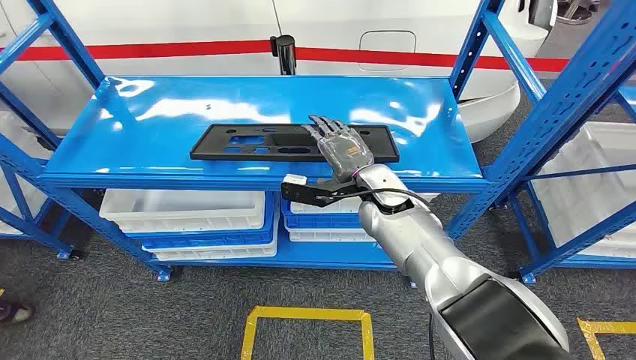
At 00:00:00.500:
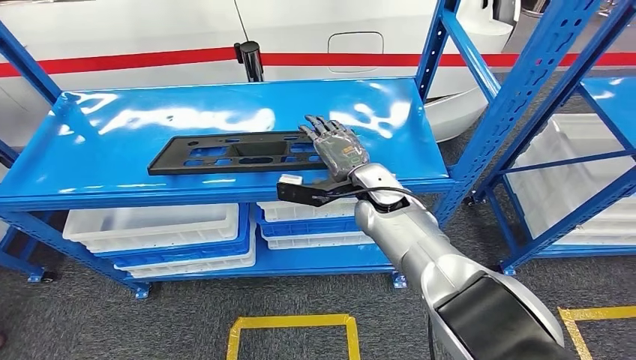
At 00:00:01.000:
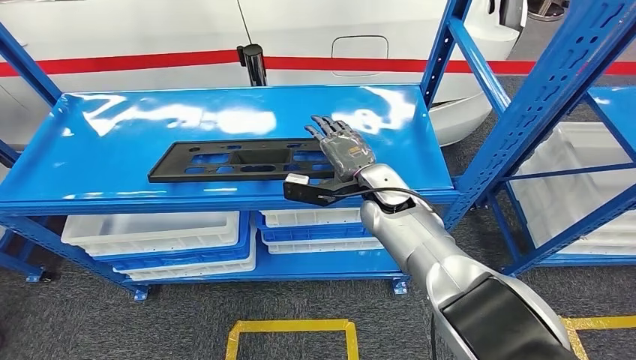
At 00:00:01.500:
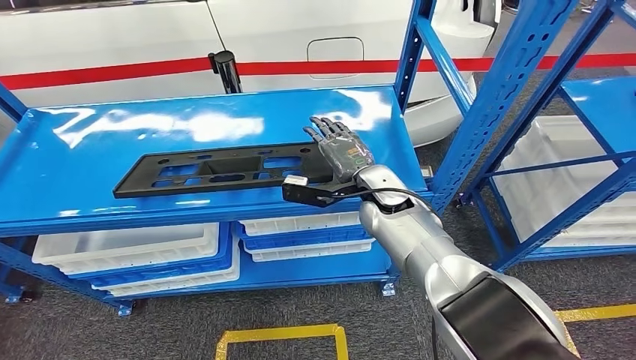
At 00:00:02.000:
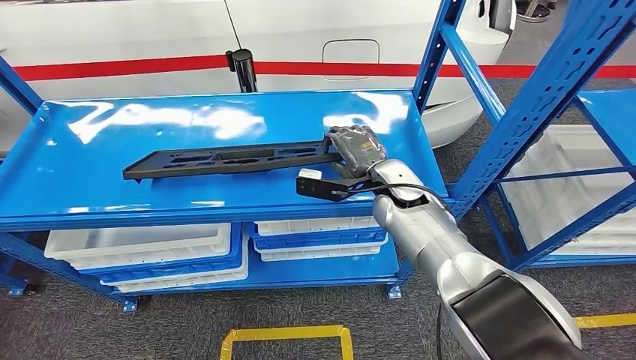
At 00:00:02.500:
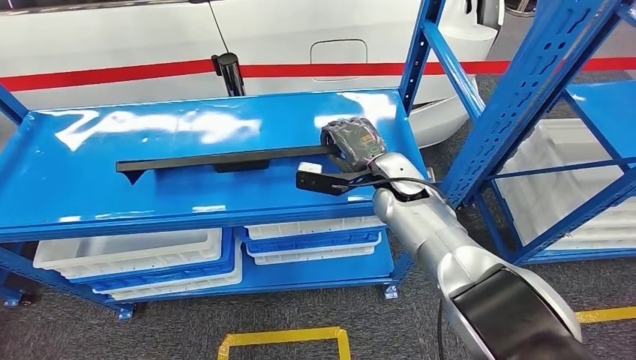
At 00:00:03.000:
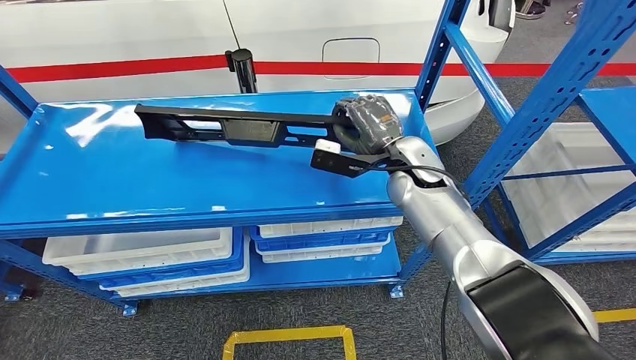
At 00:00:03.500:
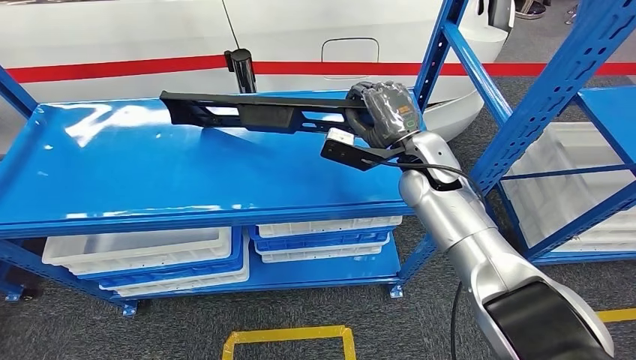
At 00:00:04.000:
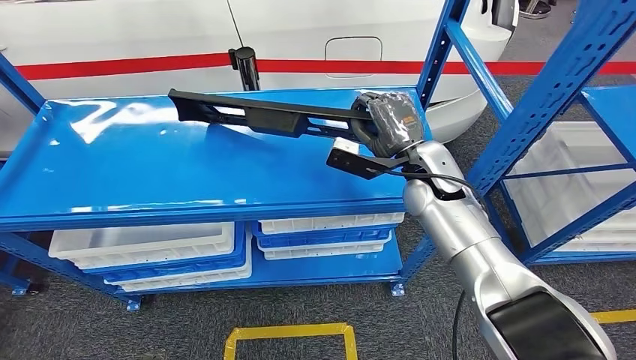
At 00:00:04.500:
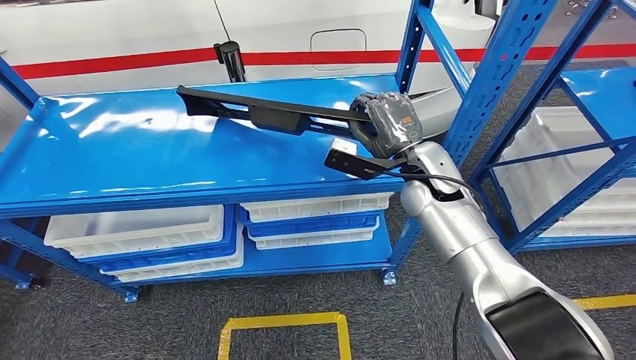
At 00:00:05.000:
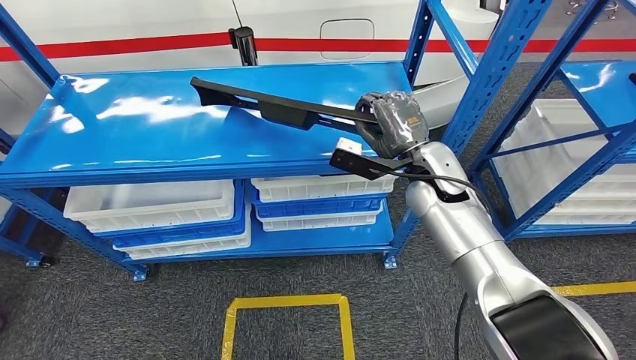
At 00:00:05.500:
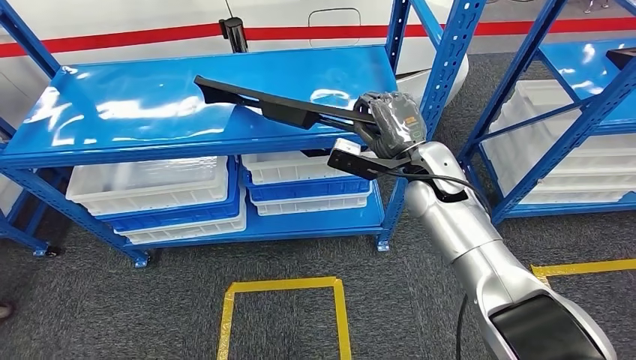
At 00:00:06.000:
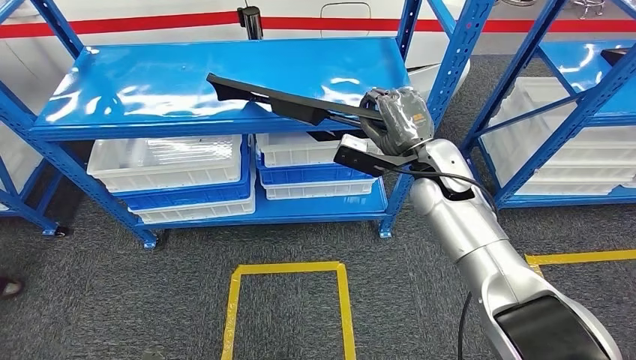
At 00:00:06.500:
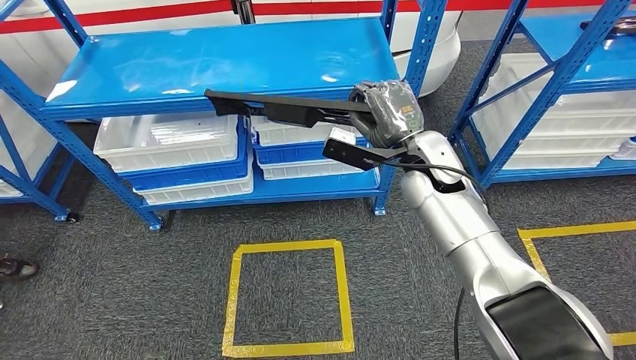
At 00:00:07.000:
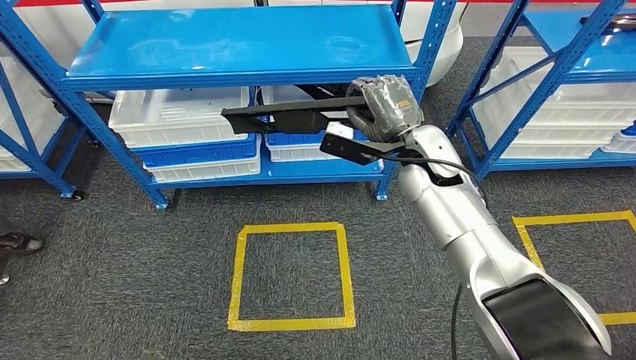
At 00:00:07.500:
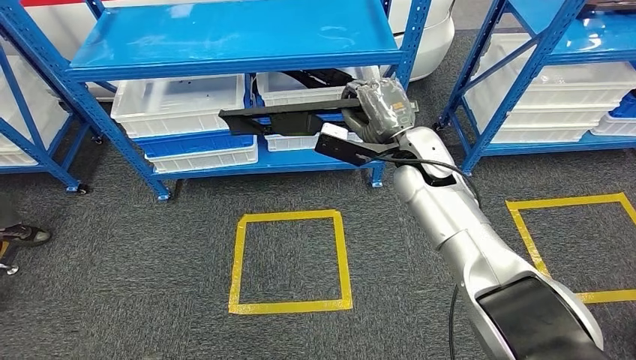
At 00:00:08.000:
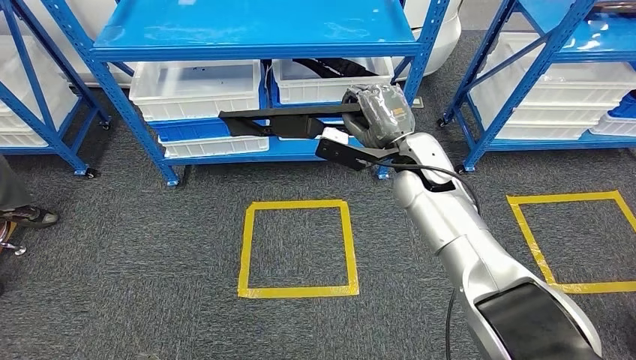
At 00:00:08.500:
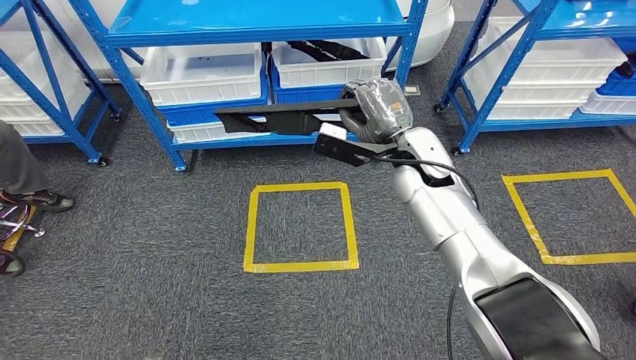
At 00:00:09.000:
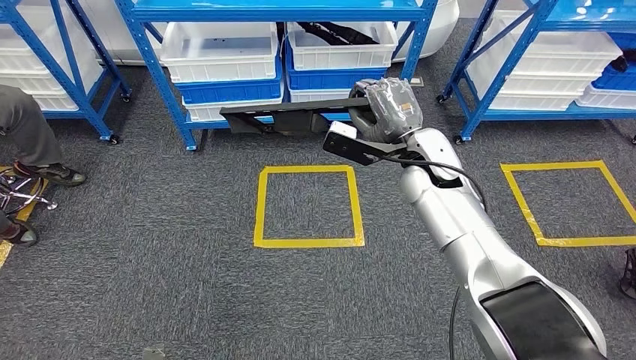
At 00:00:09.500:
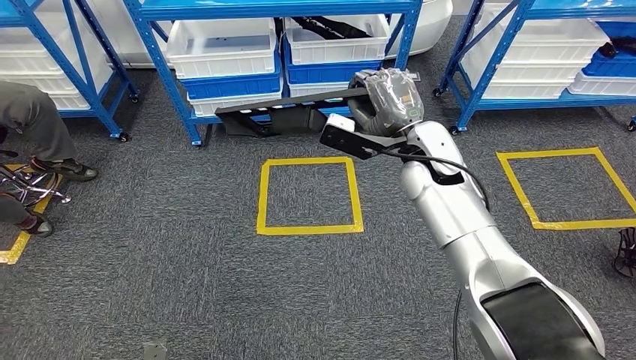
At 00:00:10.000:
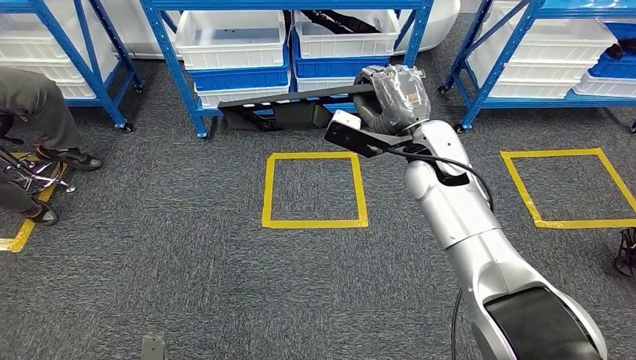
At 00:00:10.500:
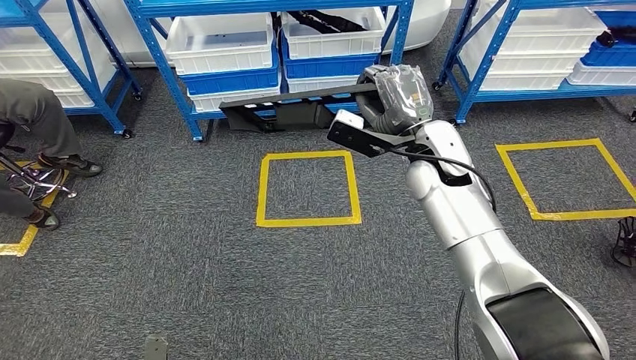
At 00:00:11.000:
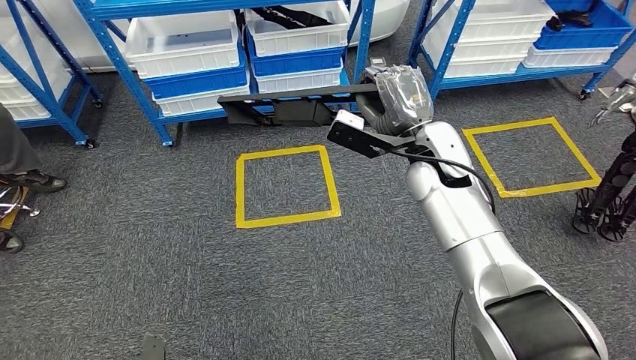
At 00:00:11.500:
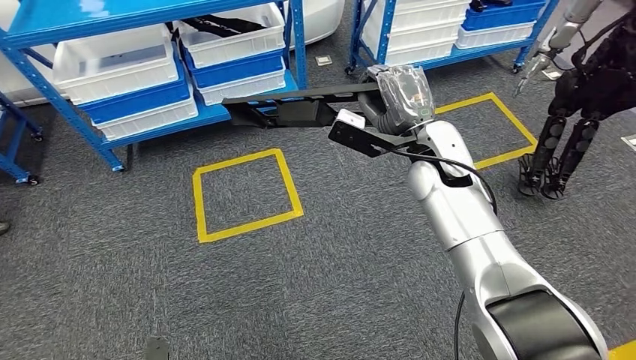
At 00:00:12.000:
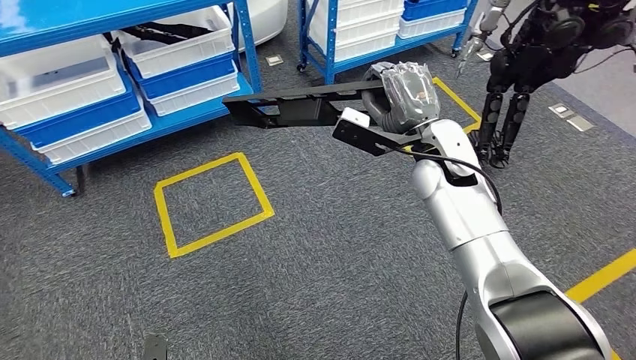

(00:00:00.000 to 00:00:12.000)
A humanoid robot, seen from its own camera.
Step, 00:00:00.000 - 00:00:07.000: Pick up the large material from the shelf.

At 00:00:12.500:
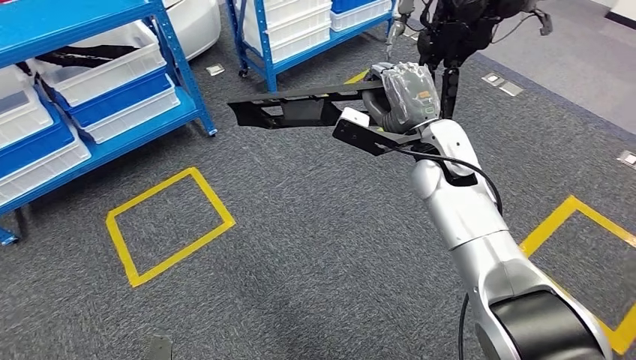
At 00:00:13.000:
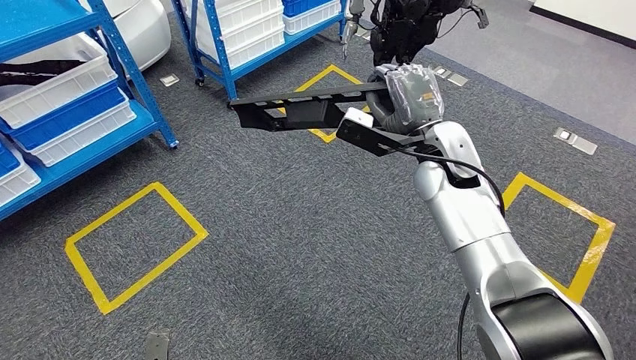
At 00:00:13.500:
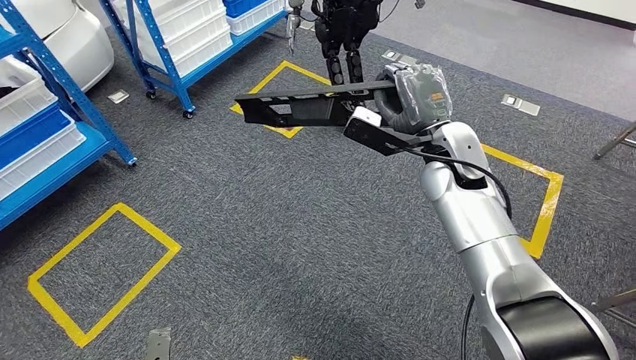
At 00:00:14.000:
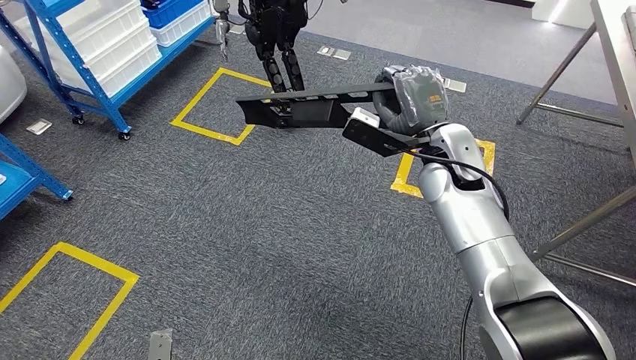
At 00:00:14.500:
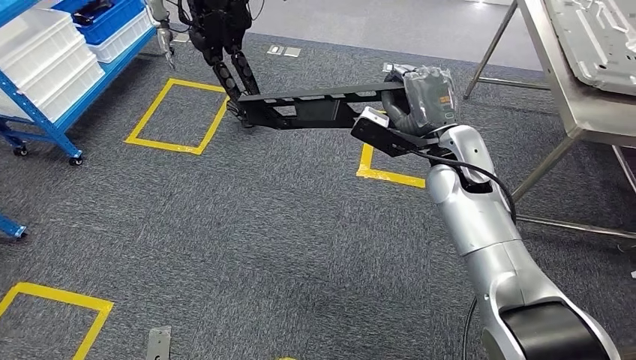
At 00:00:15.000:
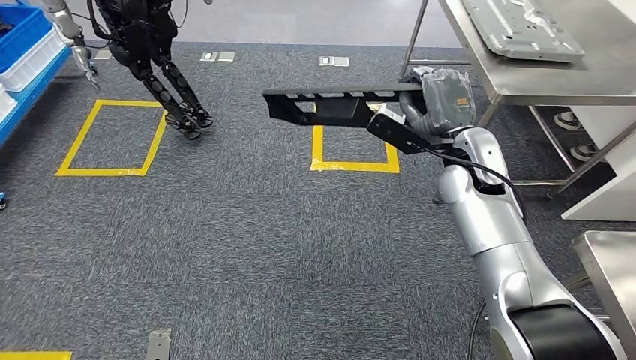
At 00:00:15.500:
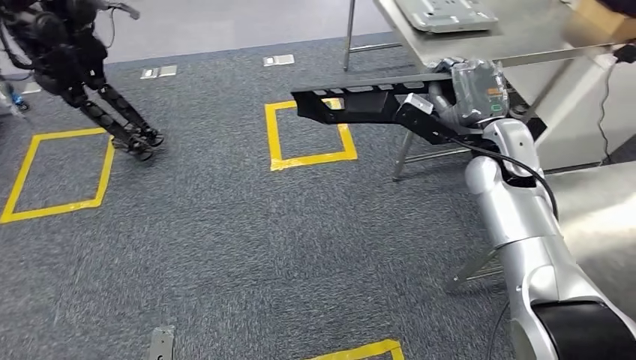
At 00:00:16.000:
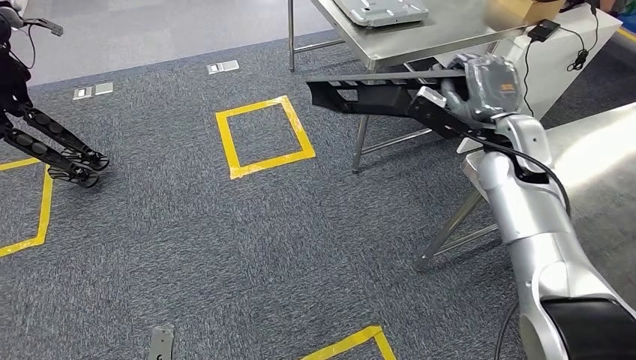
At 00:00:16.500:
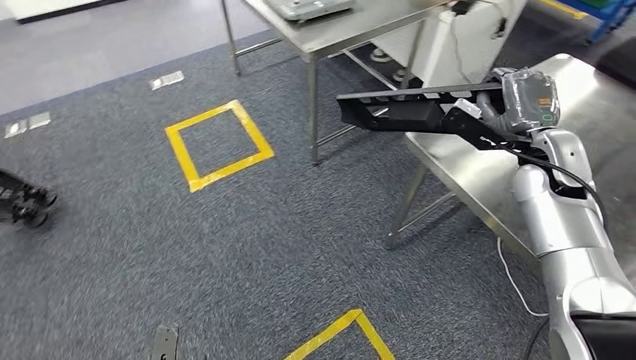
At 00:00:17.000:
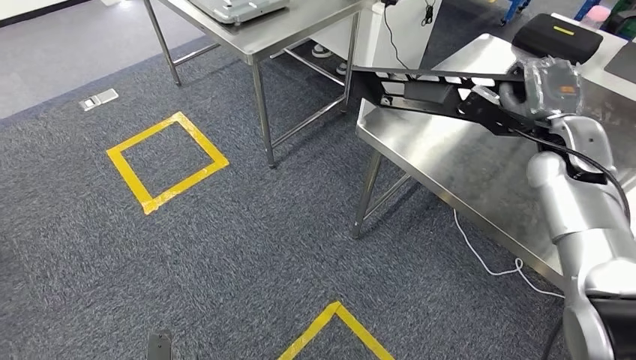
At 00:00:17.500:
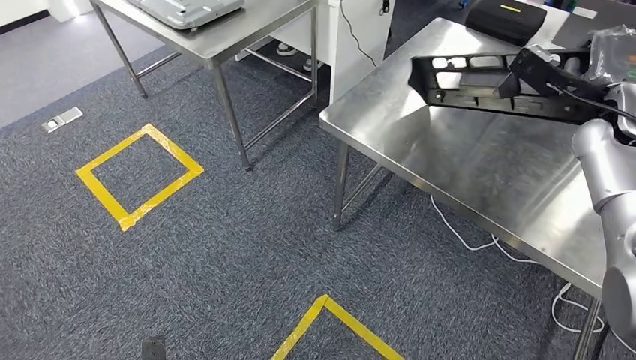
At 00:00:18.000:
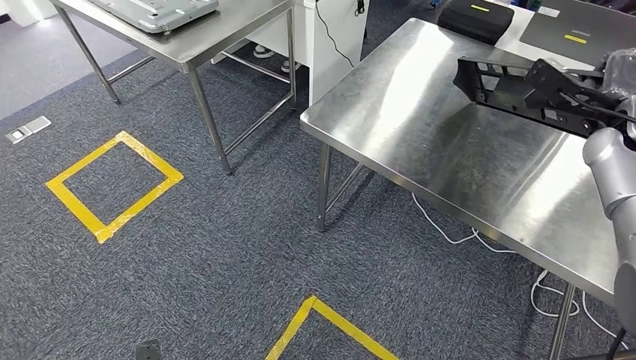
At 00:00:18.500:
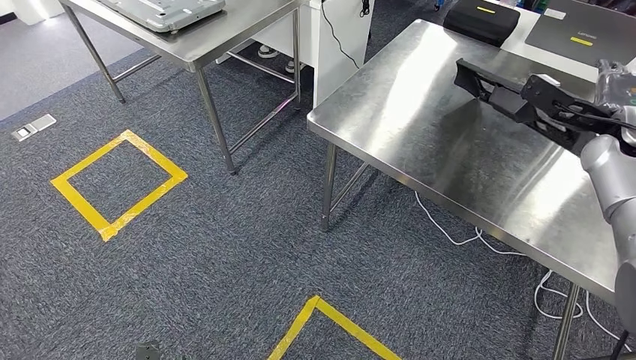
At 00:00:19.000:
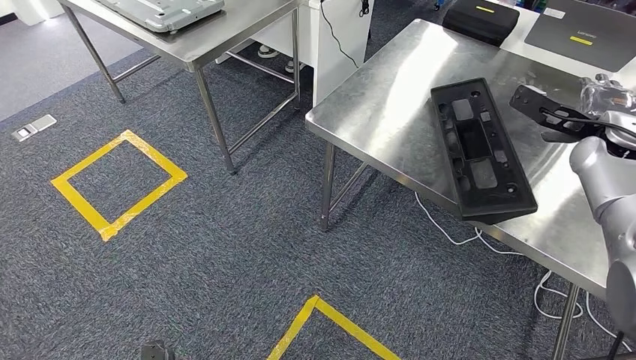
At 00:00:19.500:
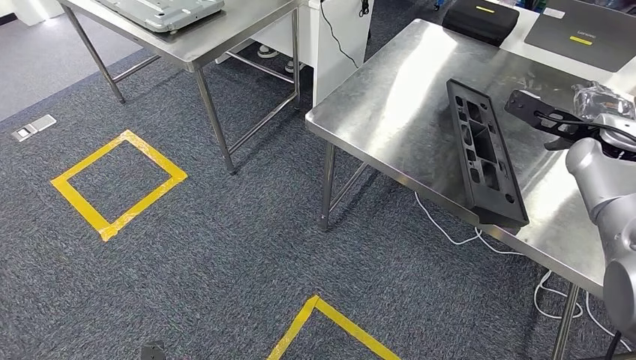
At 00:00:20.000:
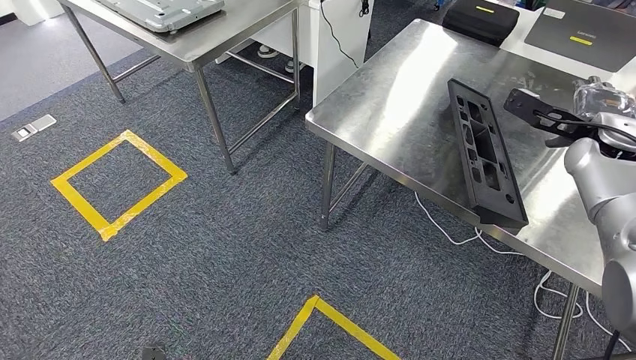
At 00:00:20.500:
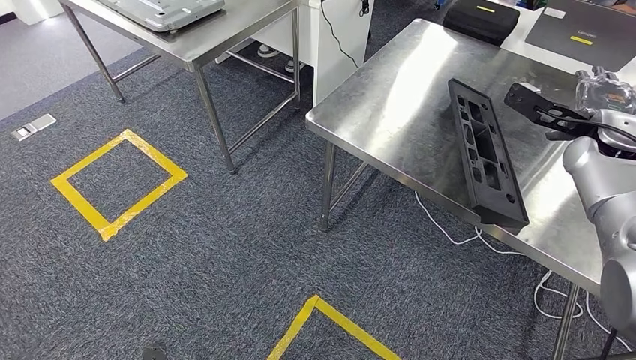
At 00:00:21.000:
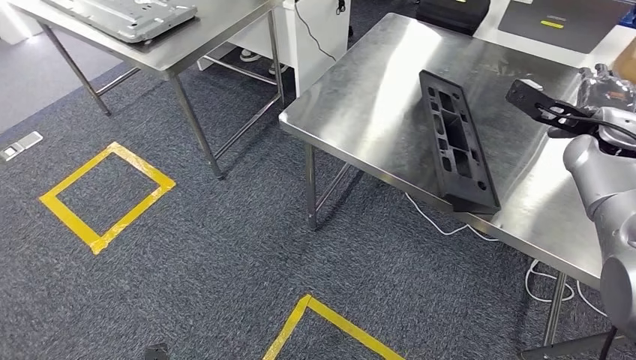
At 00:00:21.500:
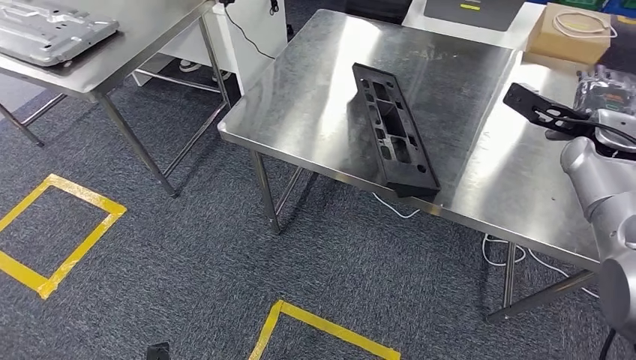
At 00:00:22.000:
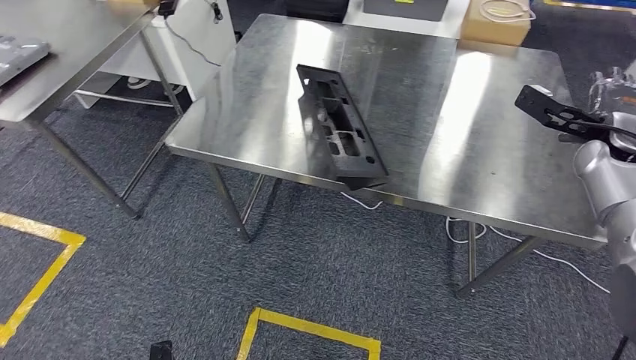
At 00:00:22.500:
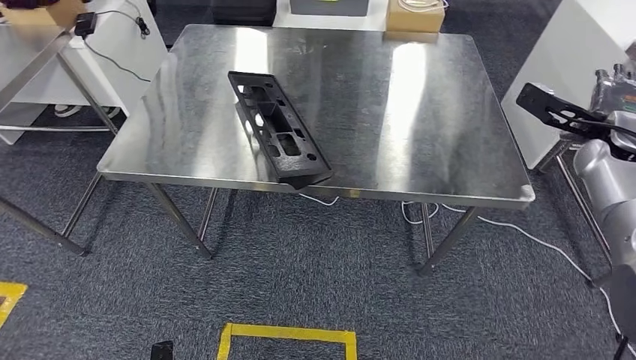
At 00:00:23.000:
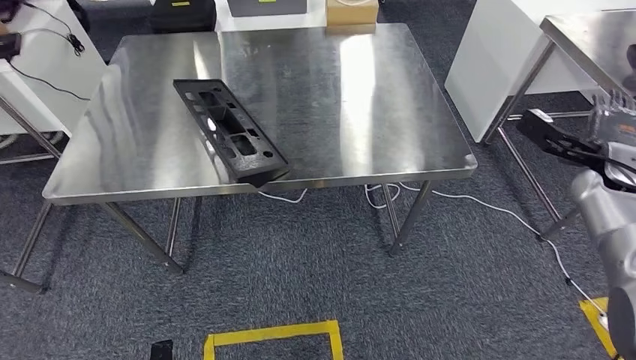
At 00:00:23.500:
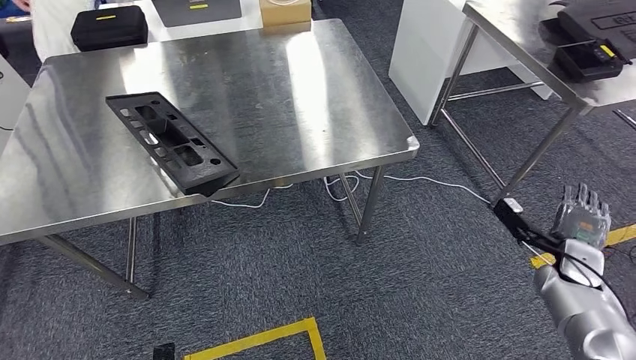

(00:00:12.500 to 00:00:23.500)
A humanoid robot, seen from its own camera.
Step, 00:00:12.500 - 00:00:18.000: Move the large material to the workbench.
Step, 00:00:18.500 - 00:00:22.500: Insert the large material into the corresponding slot on the workbench.
00:00:18.000 - 00:00:20.000: The hands stay close to where they were, moving slightly.
